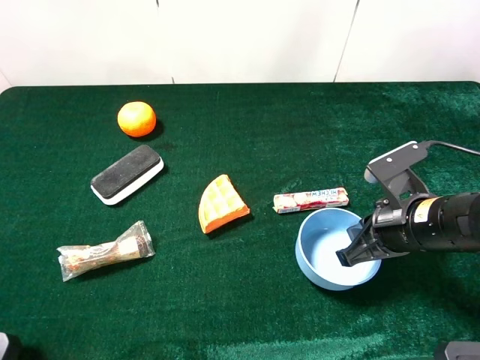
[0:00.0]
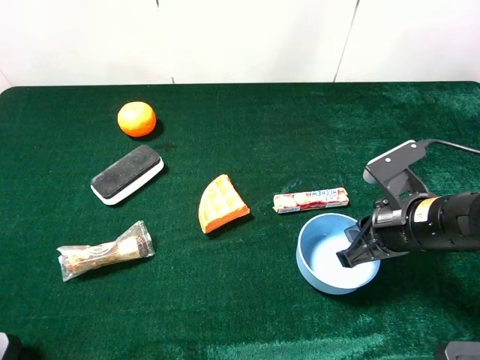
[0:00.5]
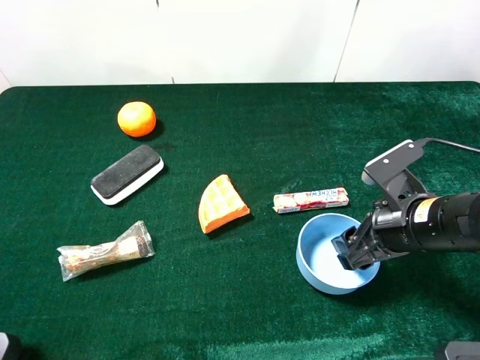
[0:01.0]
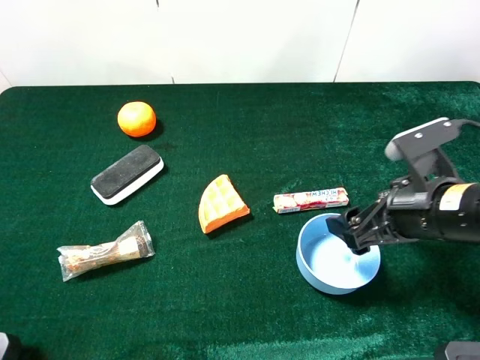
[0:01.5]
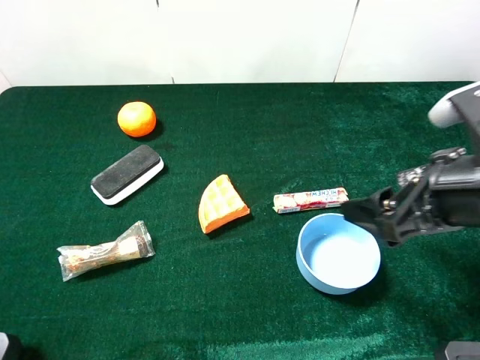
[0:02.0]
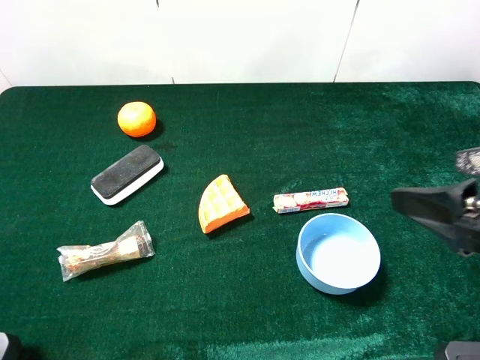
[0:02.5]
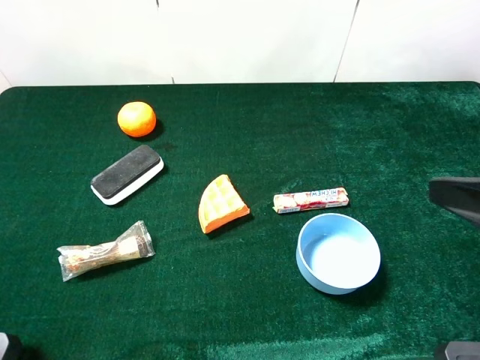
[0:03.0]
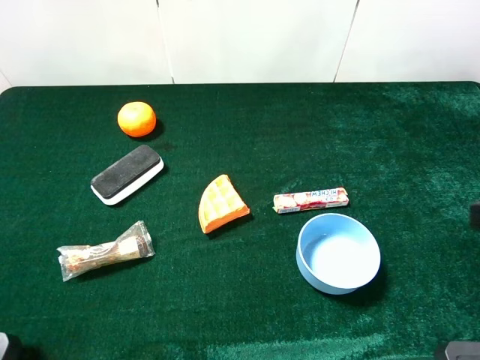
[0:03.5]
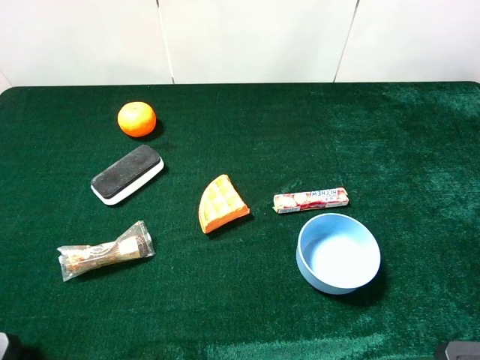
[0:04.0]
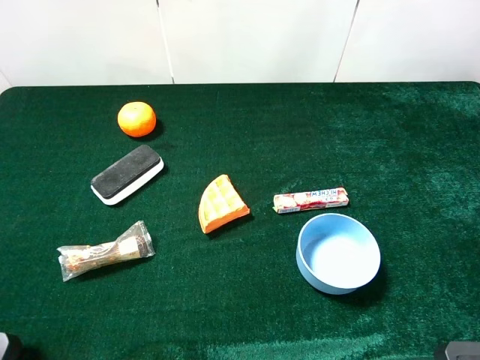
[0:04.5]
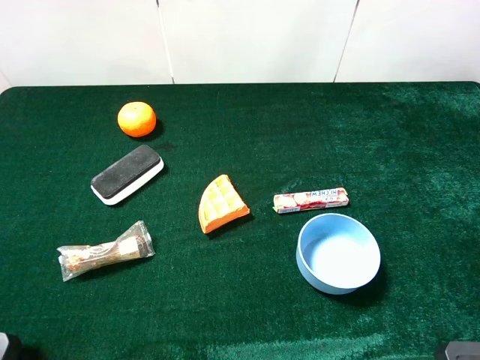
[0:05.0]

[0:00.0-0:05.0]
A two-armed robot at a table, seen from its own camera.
Task of the whole recording: the gripper move the object.
0:00.0 to 0:02.5: The right gripper shifts some 15 cm upward and backward, and opens.
0:02.5 to 0:05.0: The right gripper shifts roughly 10 cm backward.

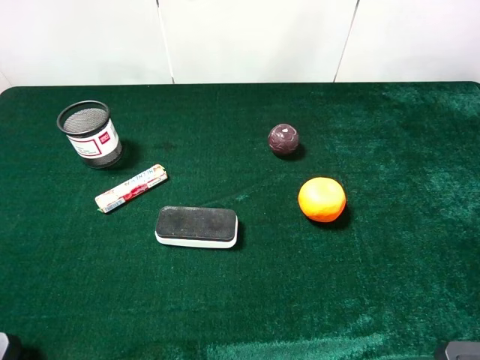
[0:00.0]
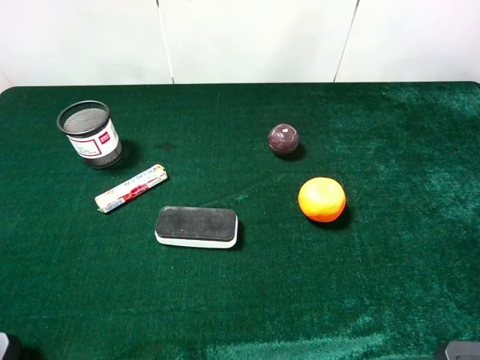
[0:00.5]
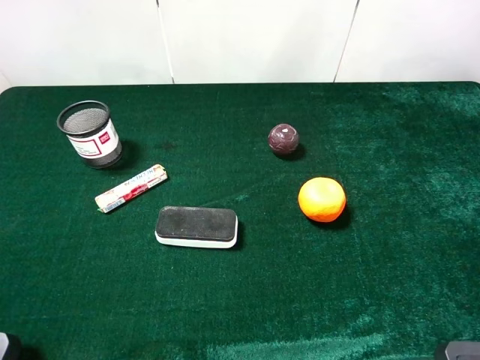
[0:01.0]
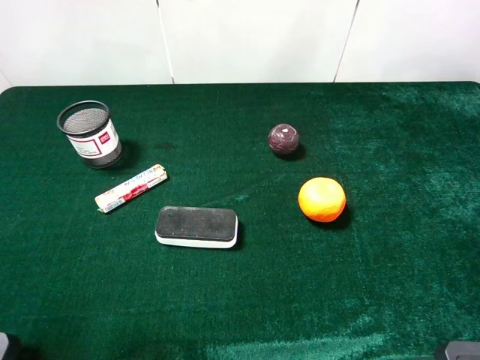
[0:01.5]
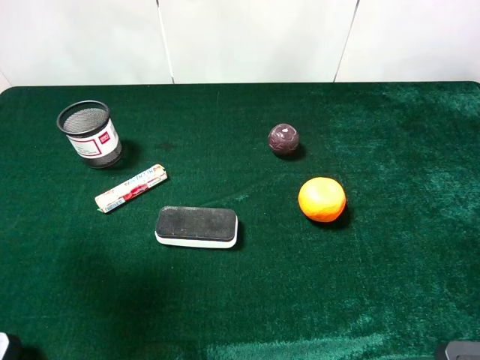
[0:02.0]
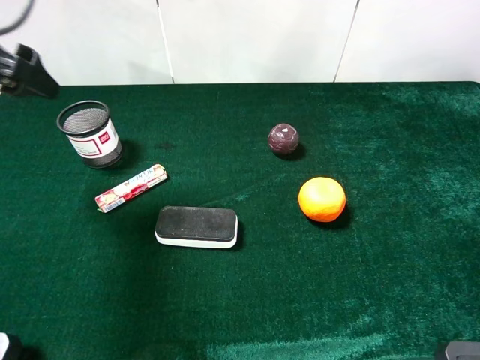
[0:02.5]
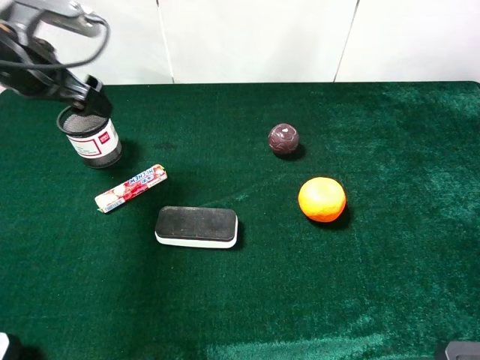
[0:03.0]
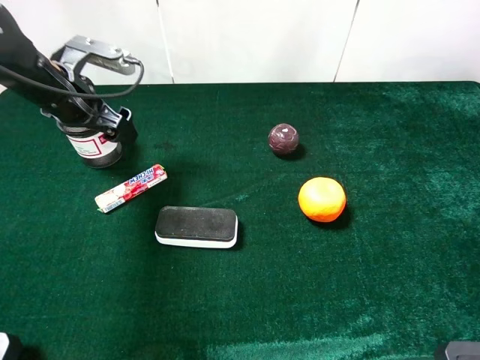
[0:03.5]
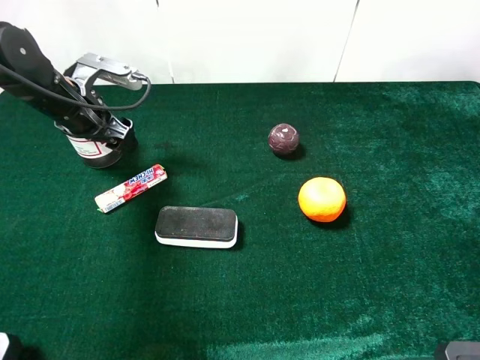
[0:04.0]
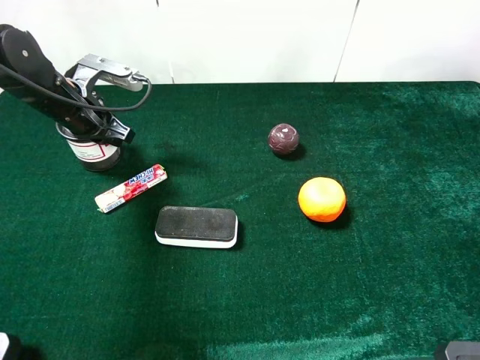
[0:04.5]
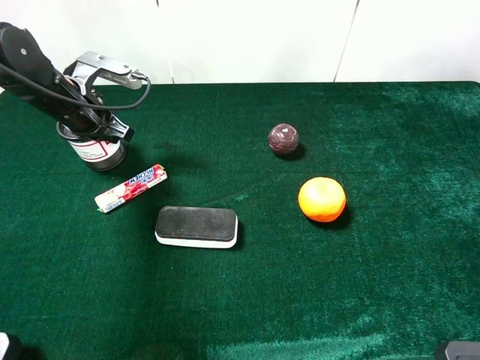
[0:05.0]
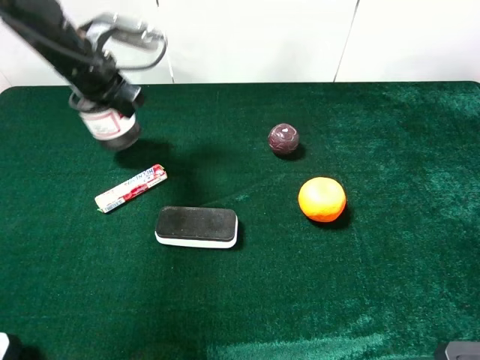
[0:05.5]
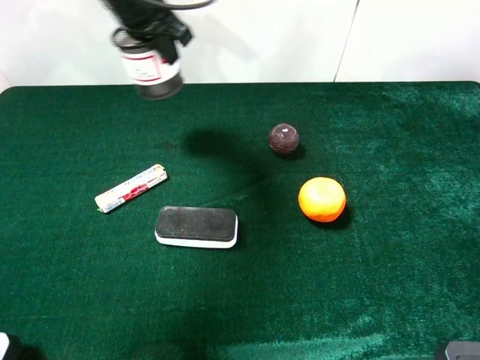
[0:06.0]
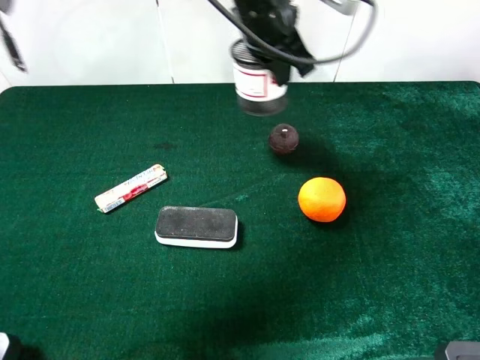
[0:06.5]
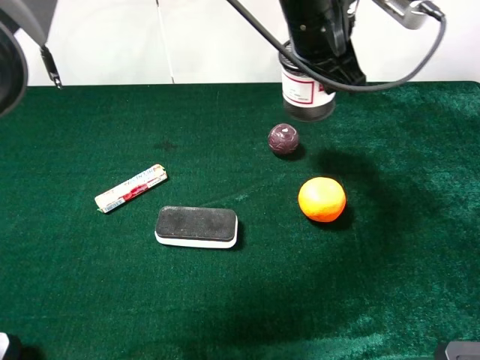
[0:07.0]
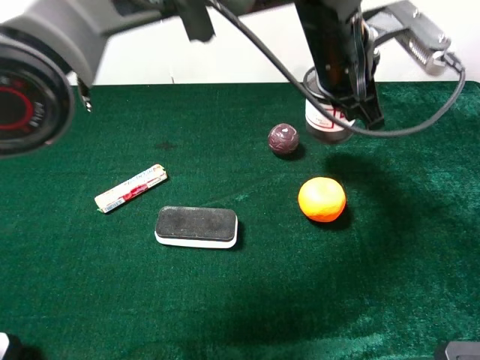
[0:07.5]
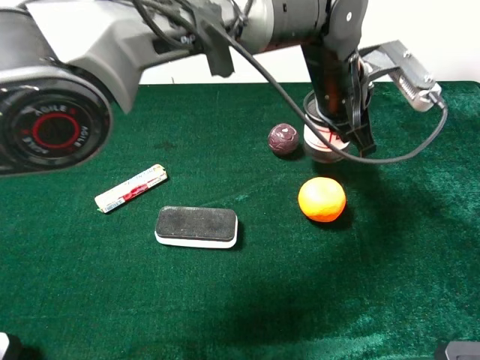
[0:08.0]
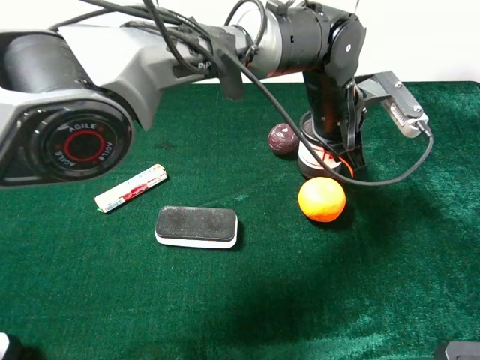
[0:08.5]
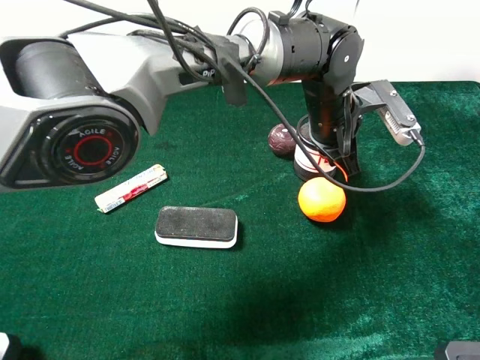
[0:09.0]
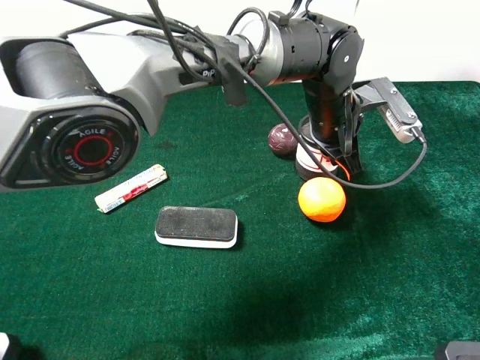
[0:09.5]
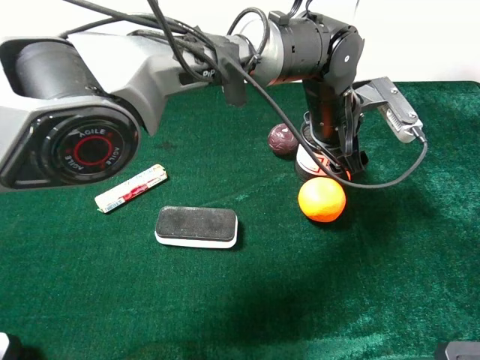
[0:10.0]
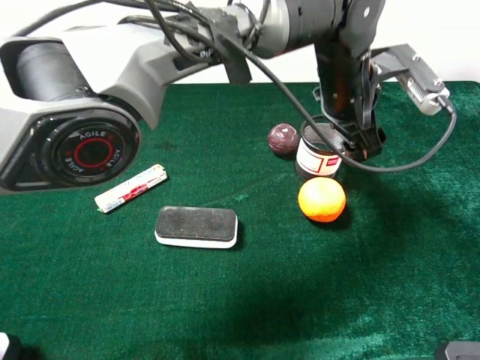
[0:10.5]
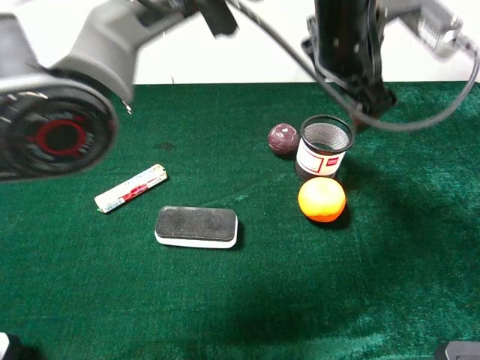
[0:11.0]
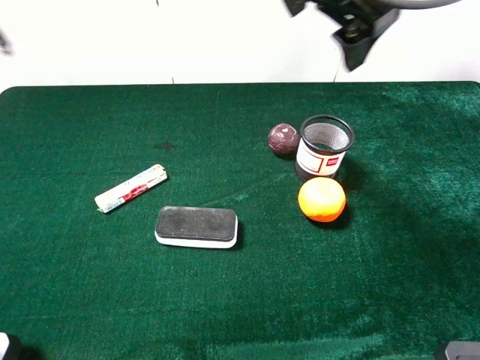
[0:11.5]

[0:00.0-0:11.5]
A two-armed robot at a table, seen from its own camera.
Task of the whole recording: the gripper move the object.
Step, 0:00.0 to 0:04.5: Grasp the pen container with the left gripper.
Step, 0:05.0 to 0:09.5: Place the pen container on the table with the left gripper.
0:02.0 to 0:04.0: The left gripper goes approximately 25 cm forward and downward.
0:04.0 to 0:06.0: The left gripper travels upward, to the right and forward by some 15 cm, and closes up.
0:06.0 to 0:07.5: The left gripper goes some 25 cm to the right.
0:07.5 to 0:09.5: The left gripper shifts some 10 cm downward.
0:09.5 to 0:11.5: The left gripper is displaced upward by about 20 cm, and opens.

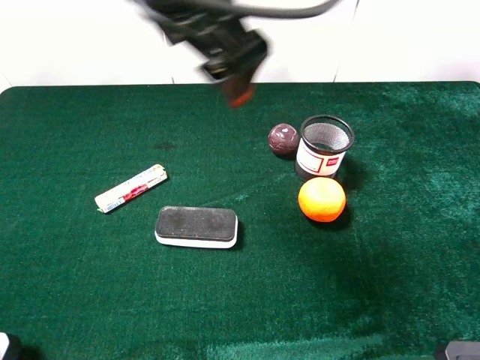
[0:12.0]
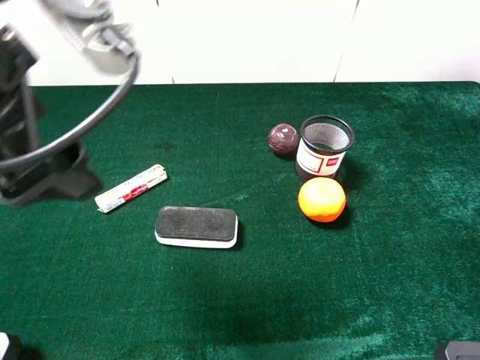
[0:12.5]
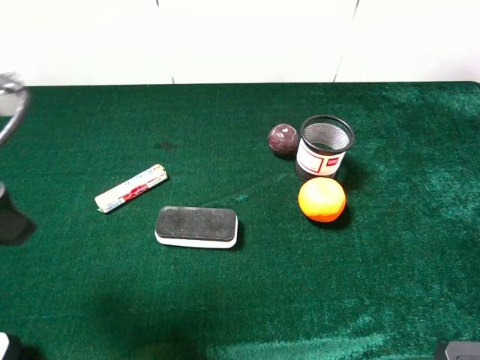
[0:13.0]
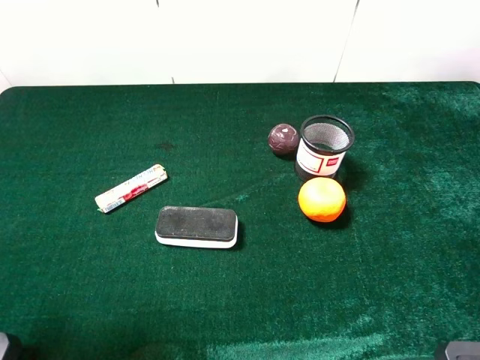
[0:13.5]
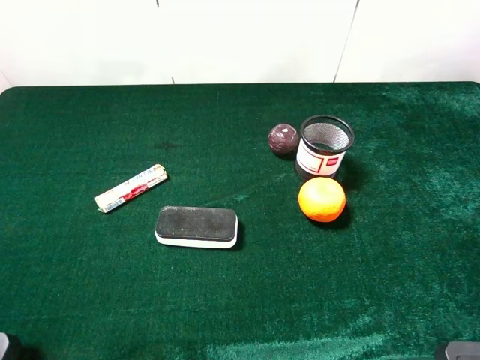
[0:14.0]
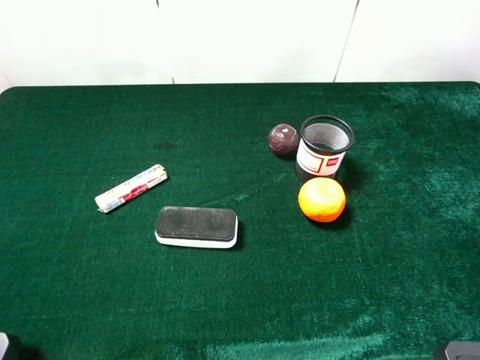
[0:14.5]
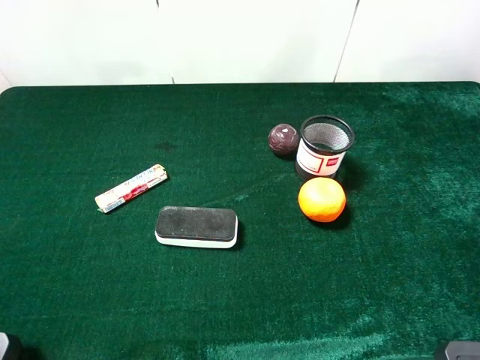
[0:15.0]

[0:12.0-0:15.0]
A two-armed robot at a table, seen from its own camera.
Task of the whole recording: the gripper move the object.
0:12.0 to 0:13.5: The left gripper shifts roughly 30 cm to the left and backward.
0:13.5 to 0:15.0: The left gripper is displaced backward by roughly 10 cm.

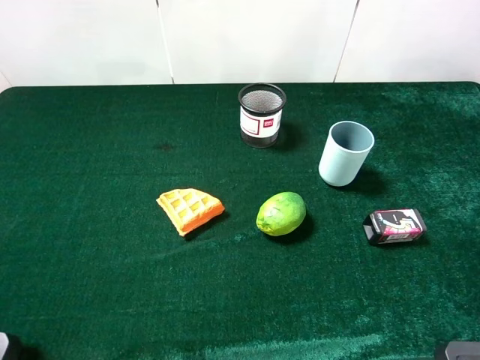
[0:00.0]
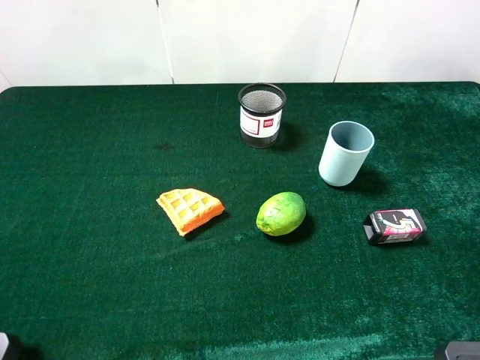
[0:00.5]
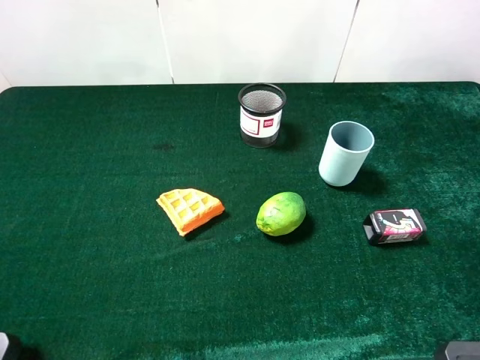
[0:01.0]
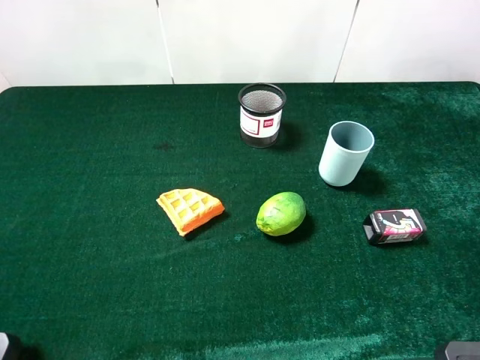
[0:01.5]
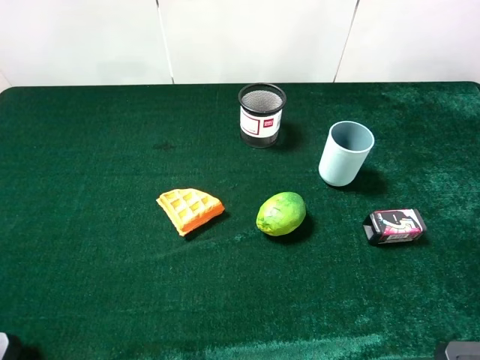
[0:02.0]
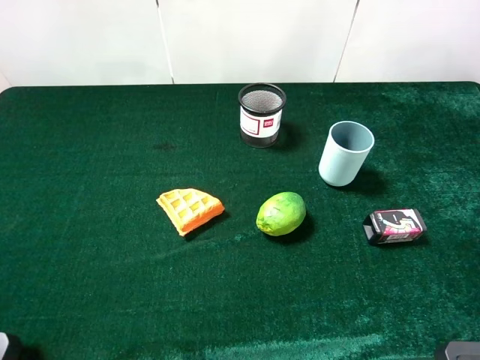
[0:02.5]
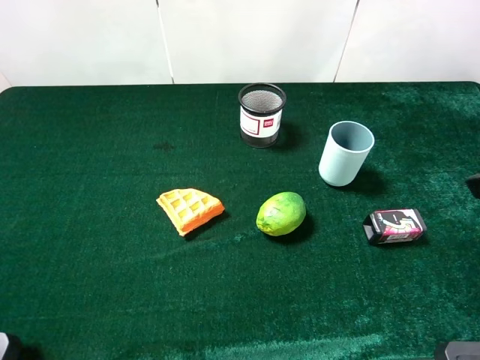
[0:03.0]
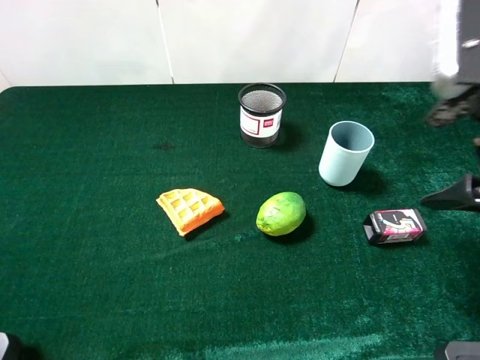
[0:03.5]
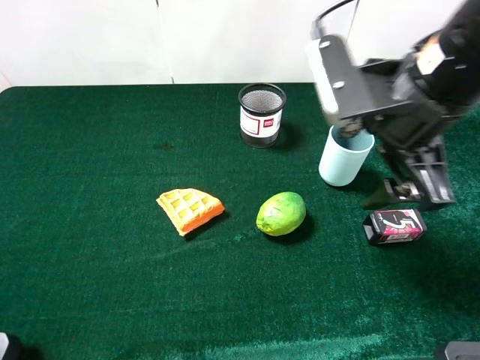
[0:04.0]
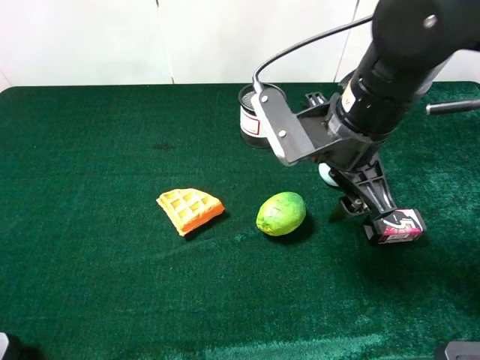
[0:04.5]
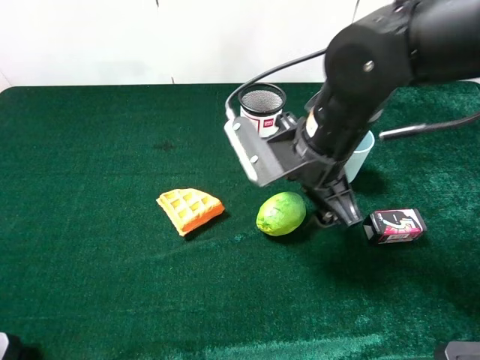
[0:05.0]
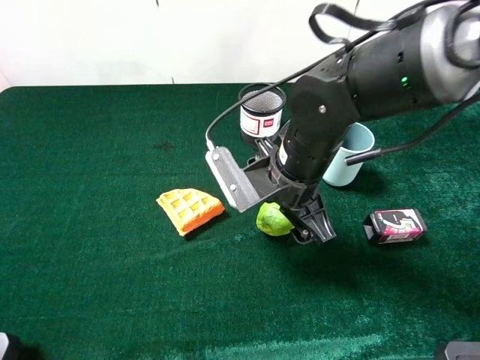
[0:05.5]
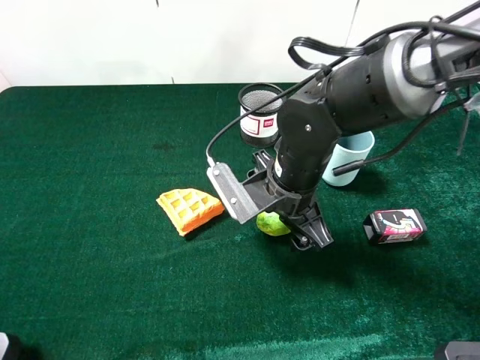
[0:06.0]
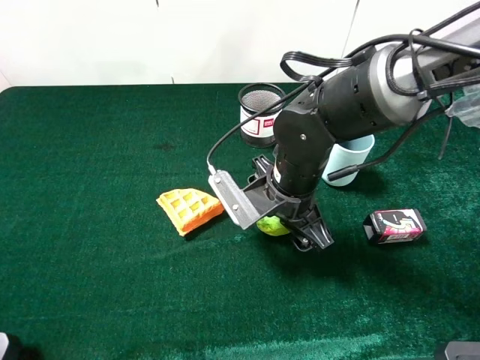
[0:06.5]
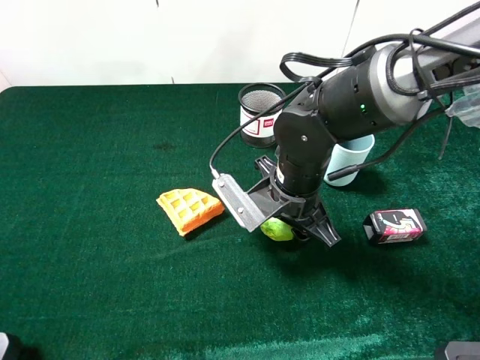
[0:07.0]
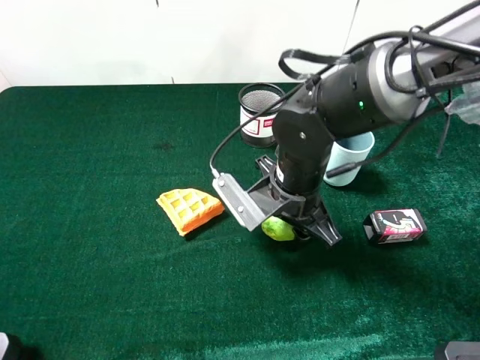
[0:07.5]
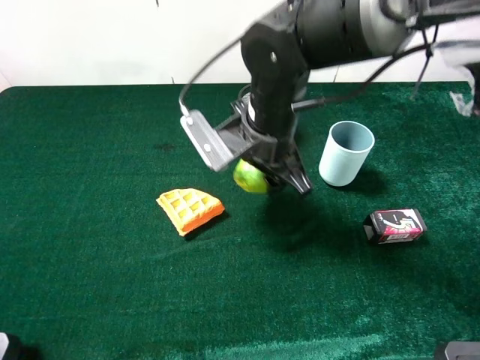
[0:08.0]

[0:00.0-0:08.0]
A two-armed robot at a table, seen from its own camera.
Task of the whole recording: the gripper move the object.
Step, 0:00.0 to 0:07.0: Grasp the green lemon with the right gripper.
0:02.0 to 0:04.0: The right gripper shifts approximately 25 cm forward and to the left.
0:04.0 to 0:06.0: The right gripper goes some 20 cm downward and to the left.
0:06.0 to 0:08.0: The right gripper changes place by some 5 cm, and closes.
